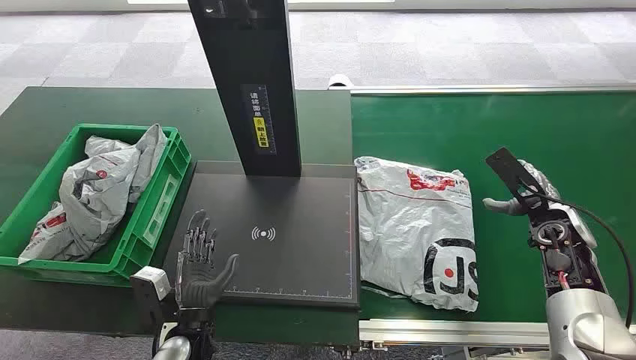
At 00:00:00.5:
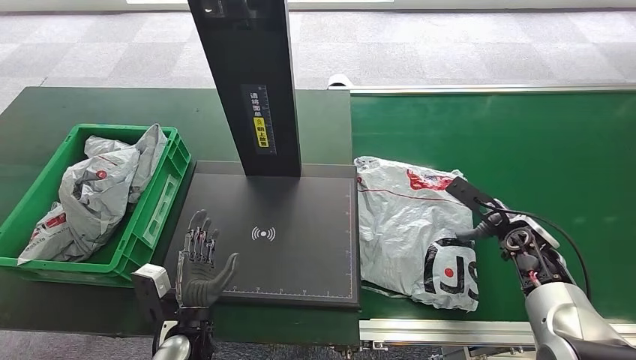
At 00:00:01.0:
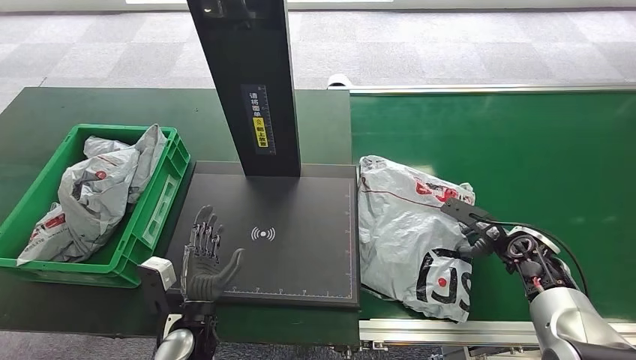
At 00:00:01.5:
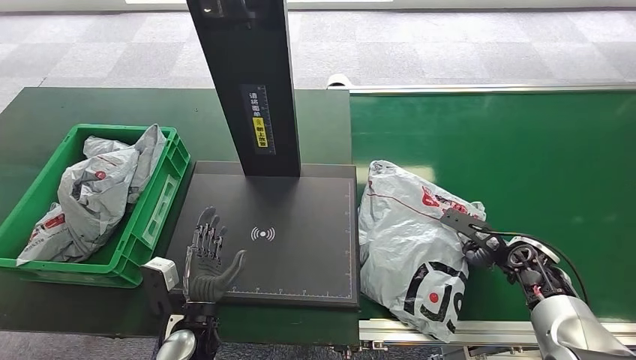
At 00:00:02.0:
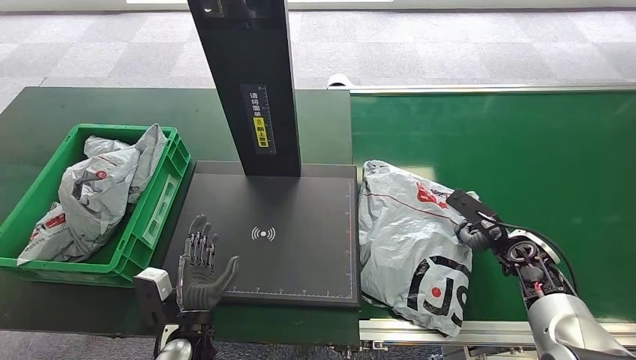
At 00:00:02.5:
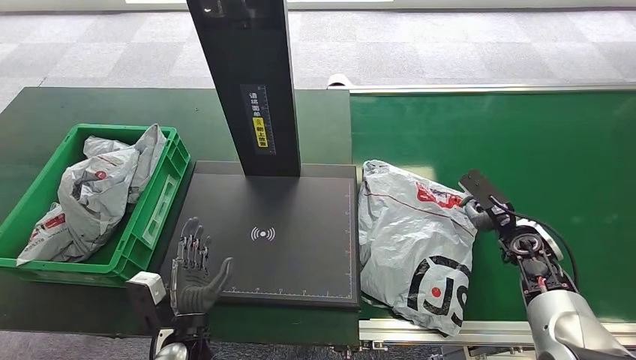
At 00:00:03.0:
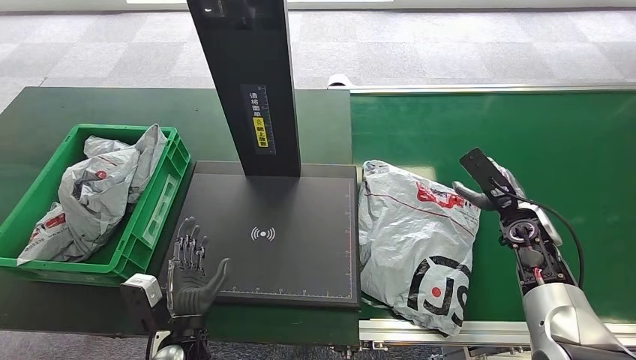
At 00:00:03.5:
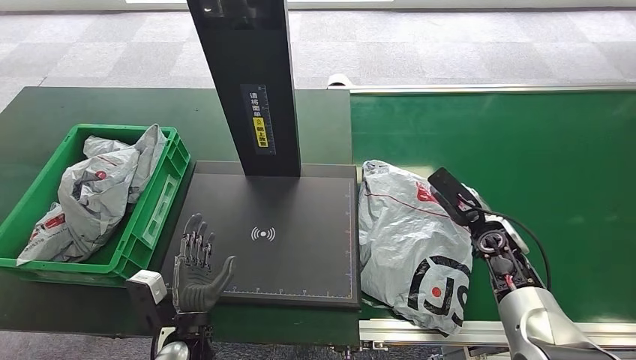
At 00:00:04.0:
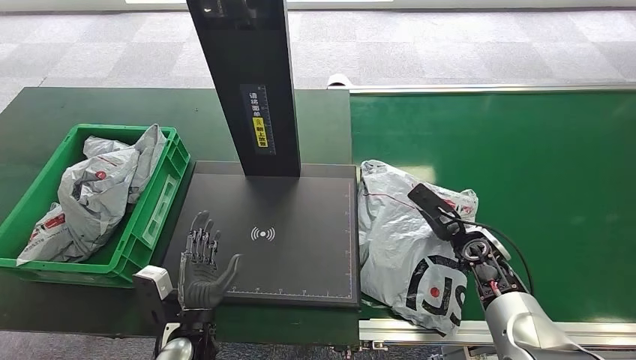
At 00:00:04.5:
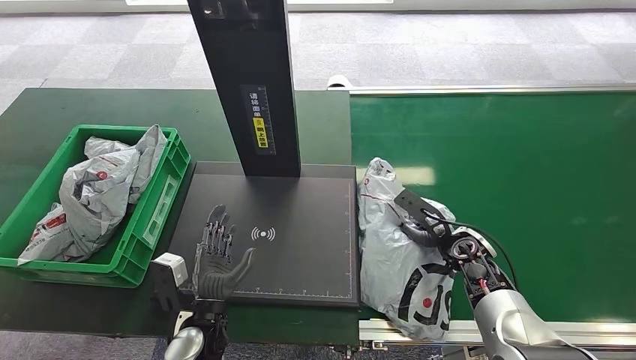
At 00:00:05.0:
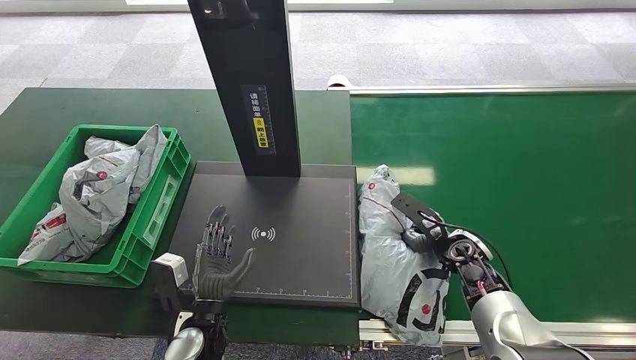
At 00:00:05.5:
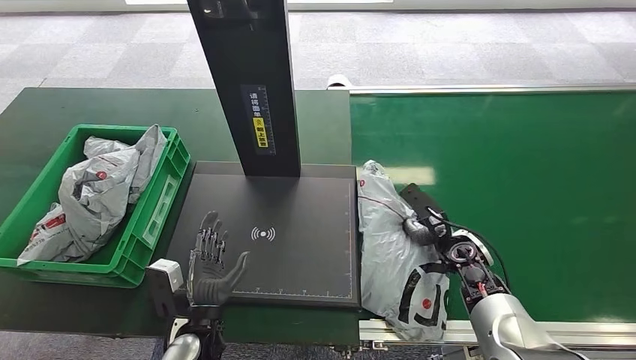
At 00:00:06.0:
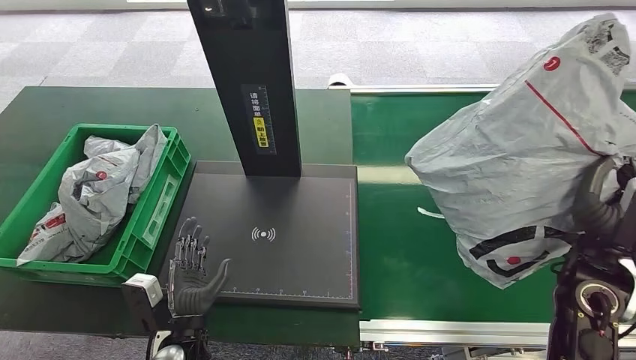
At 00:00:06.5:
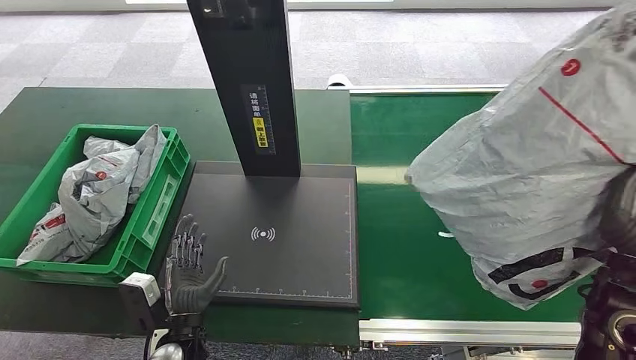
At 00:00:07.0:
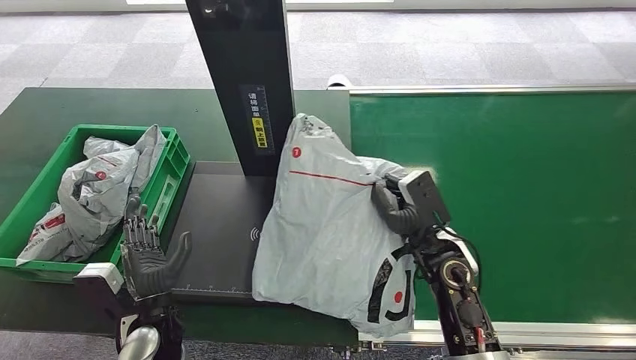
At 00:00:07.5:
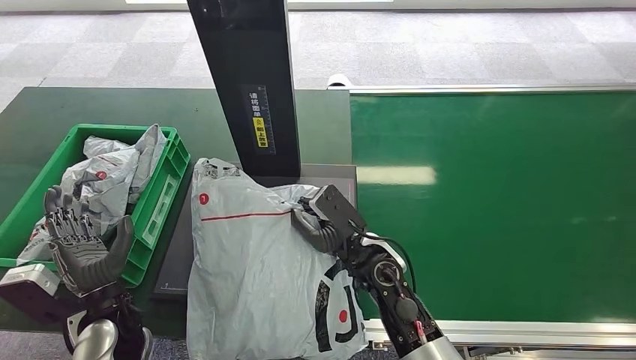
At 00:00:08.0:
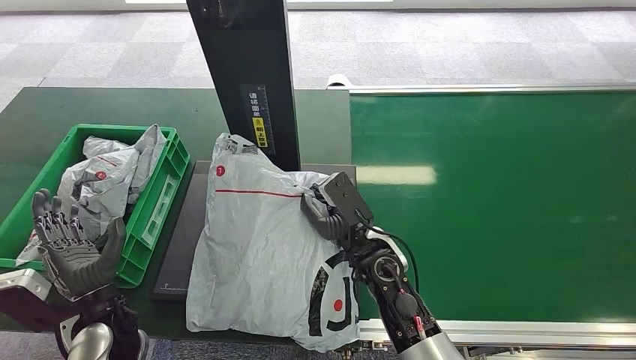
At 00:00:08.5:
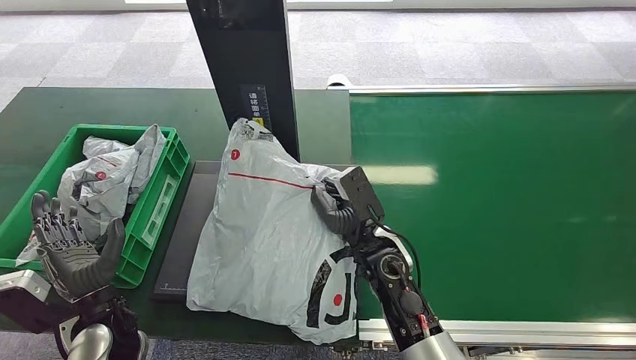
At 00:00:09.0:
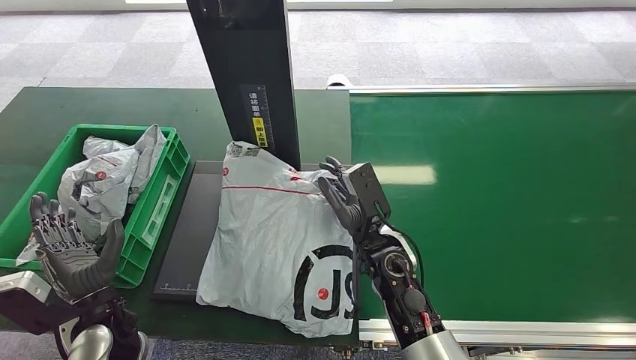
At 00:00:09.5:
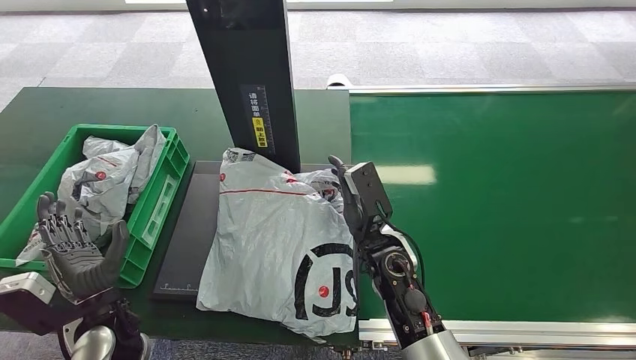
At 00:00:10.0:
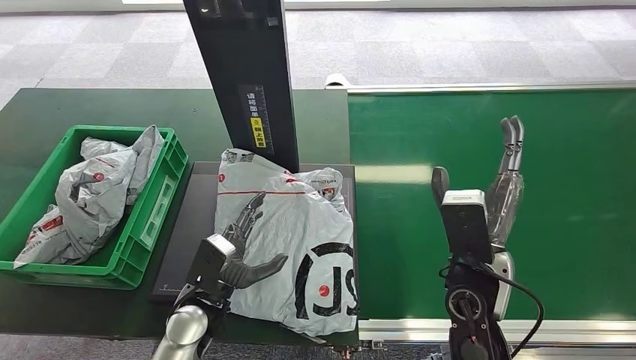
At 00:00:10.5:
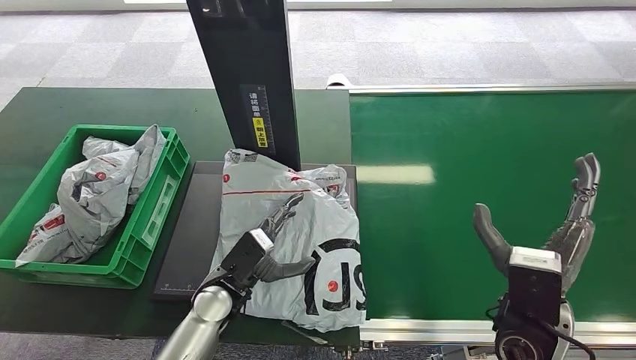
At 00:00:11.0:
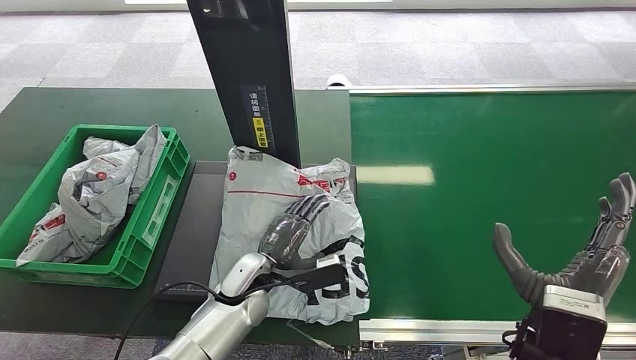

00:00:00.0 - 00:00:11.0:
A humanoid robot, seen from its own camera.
Step, 00:00:00.0 - 00:00:06.5: Pick up the package from the conveyor belt.
Step, 00:00:07.0 - 00:00:09.5: Place the package onto the inbound machine.
00:00:02.0 - 00:00:03.5: The right hand heads to the left, covering approximately 5 cm.
00:00:03.5 - 00:00:05.5: The right hand heads to the left, covering roughly 5 cm.
00:00:07.5 - 00:00:09.0: The hands move only a little.
00:00:09.0 - 00:00:11.0: The left hand shifts about 20 cm to the right and forward. Meanwhile the right hand shifts some 20 cm to the right and backward.

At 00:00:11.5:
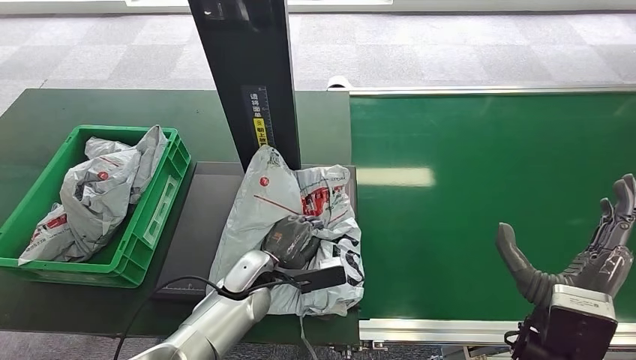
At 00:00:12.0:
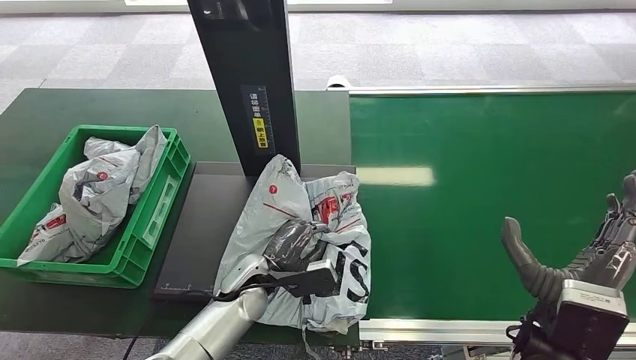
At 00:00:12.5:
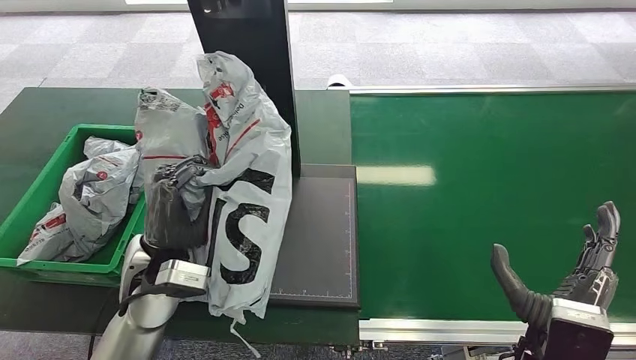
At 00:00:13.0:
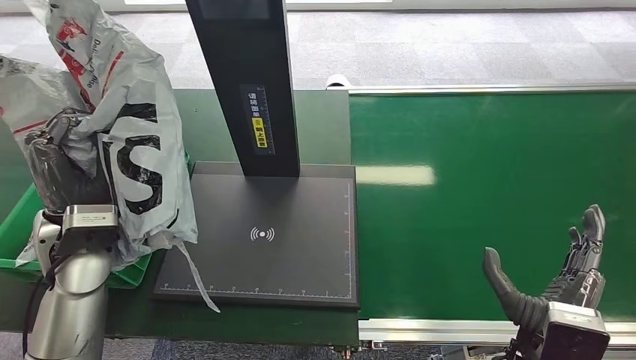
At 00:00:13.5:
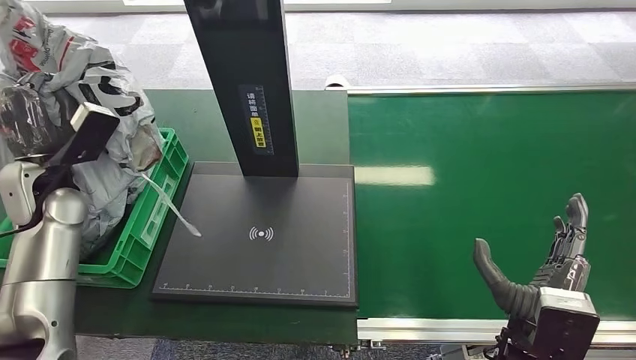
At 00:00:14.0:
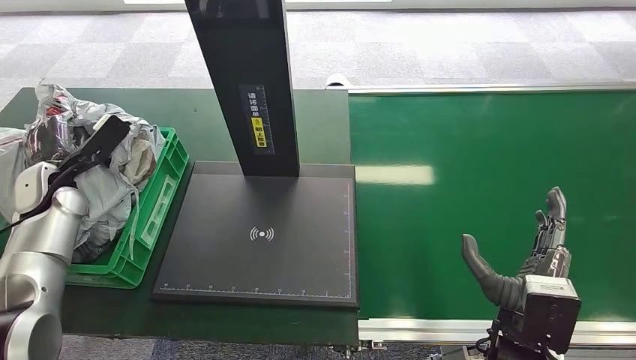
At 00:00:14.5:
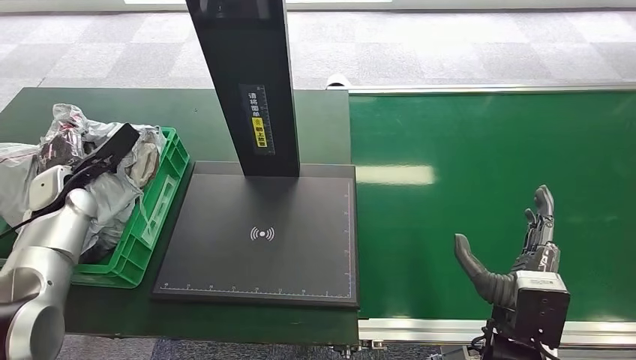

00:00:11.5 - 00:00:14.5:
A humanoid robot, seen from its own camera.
Step, 00:00:12.5 - 00:00:14.5: Place the package into the parcel locker.
